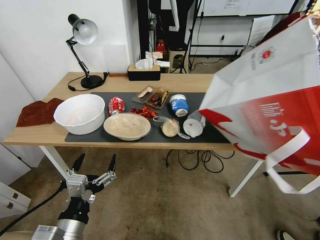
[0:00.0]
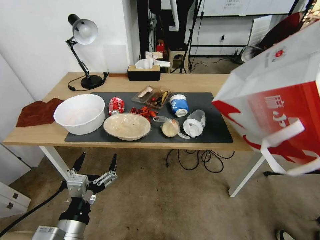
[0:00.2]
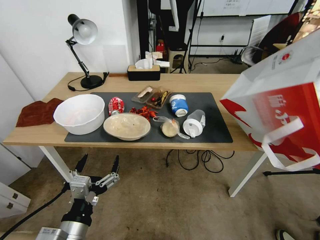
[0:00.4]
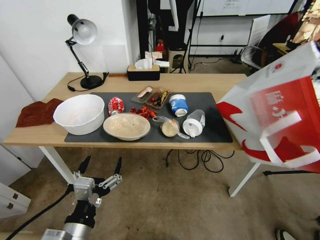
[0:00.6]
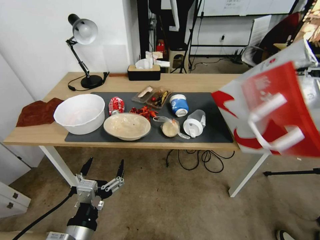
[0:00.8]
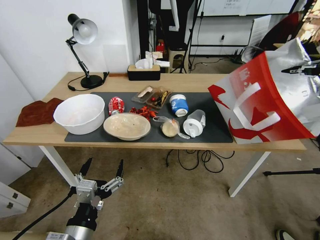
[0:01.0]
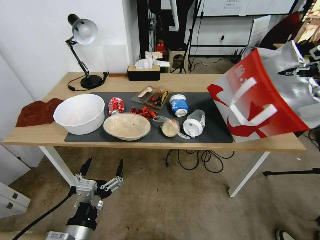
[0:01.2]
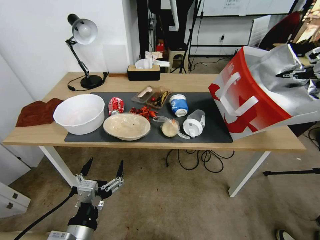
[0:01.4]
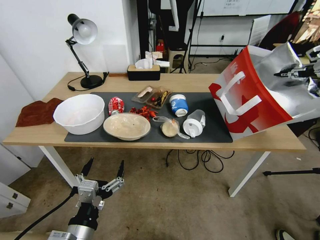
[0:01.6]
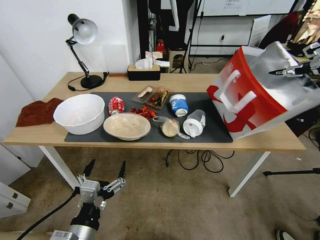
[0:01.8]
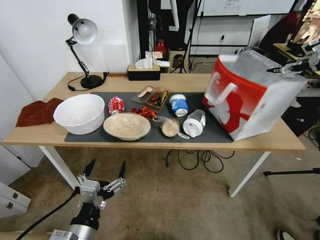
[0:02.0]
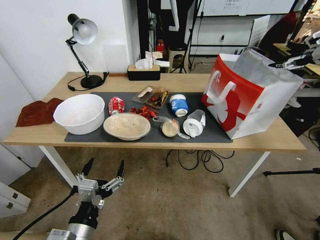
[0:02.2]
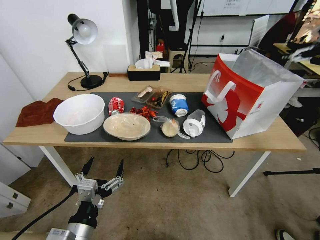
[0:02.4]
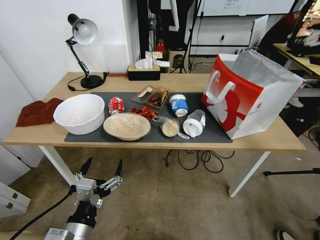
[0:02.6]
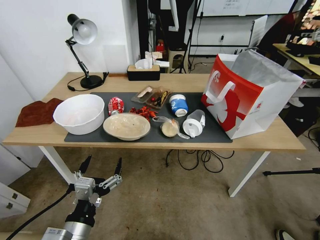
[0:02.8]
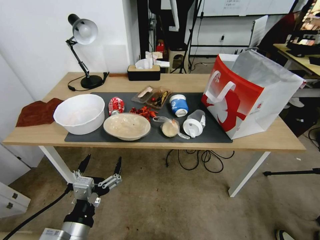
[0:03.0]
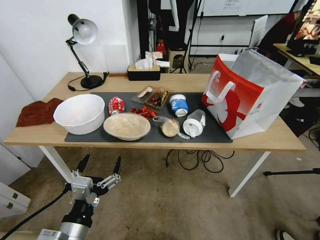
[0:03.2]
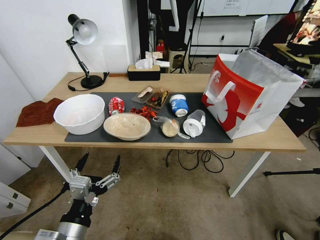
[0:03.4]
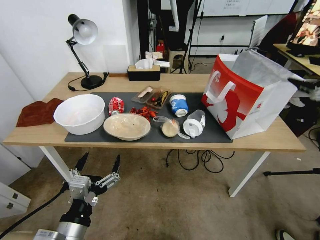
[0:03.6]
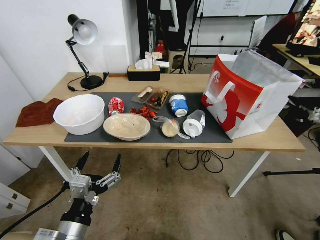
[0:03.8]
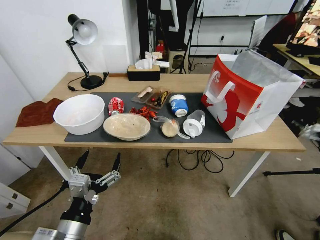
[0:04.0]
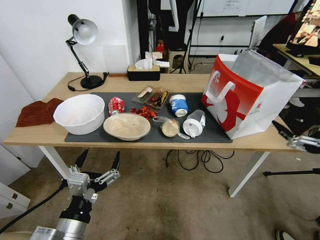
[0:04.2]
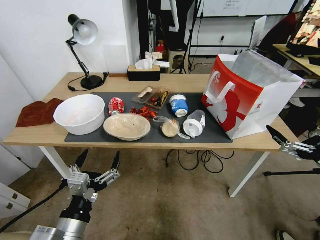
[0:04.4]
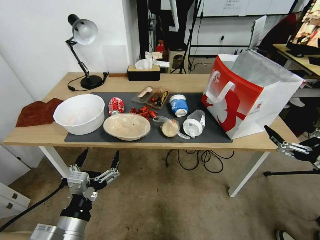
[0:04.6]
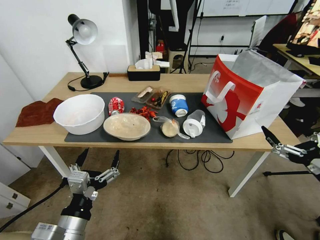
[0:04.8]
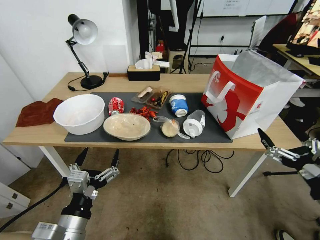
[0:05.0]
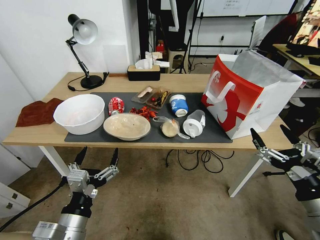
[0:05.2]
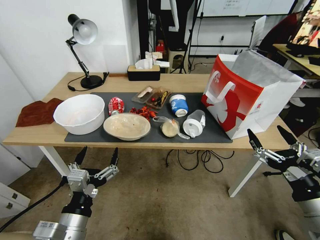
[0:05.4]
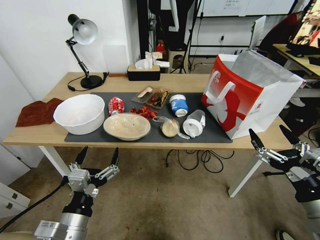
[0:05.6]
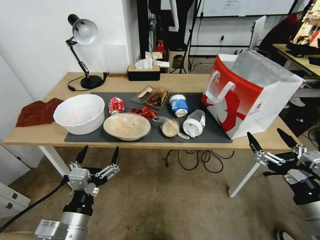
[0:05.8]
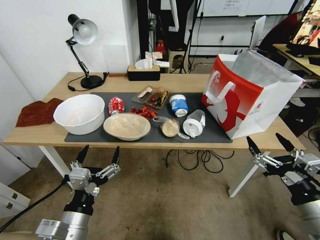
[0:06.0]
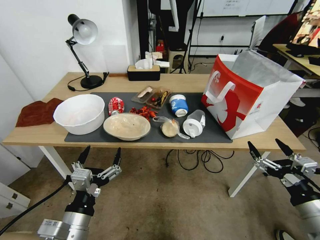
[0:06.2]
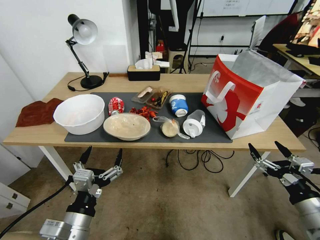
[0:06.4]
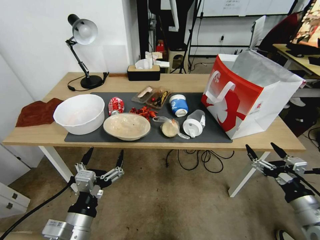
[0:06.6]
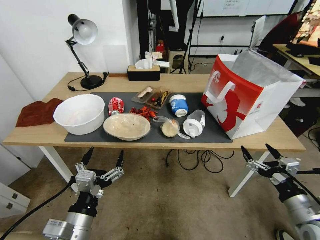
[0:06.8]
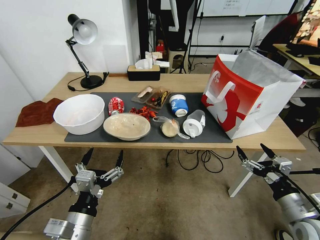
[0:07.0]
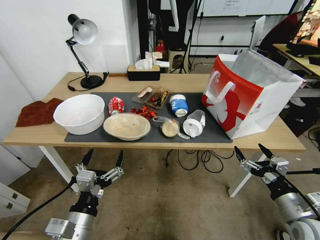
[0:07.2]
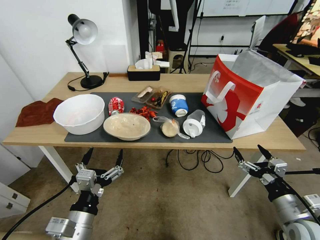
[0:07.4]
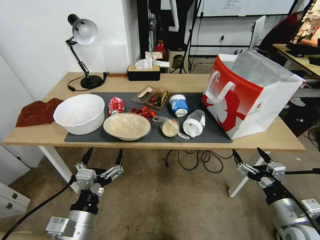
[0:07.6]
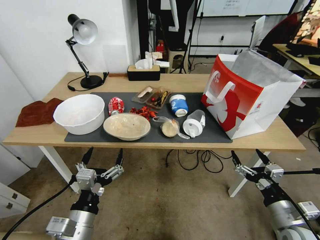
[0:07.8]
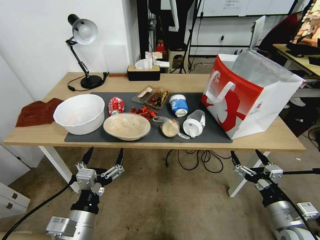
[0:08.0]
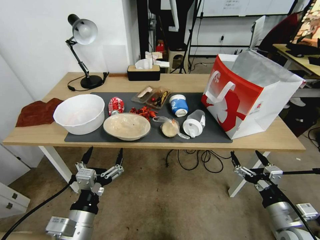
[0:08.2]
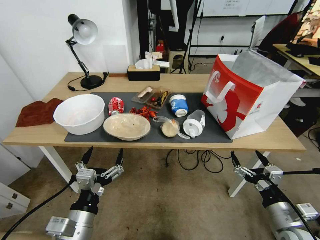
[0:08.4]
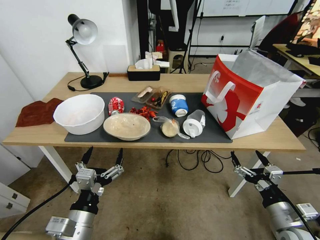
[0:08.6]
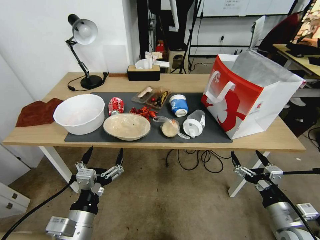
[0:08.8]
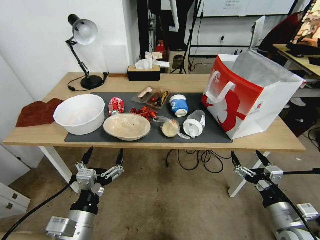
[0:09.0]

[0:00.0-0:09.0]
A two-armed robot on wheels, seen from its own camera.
Task of the whole recording: Pick up the food delivery bag from the floor and place it on the table.
0:00.0 to 0:01.6: The right gripper goes about 20 cm forward, downward and to the right.
0:01.6 to 0:03.0: The right gripper shifts approximately 15 cm backward, upward and to the left, and opens its fingers.
0:03.0 to 0:04.4: The right gripper is displaced downward and backward by about 35 cm.
0:04.4 to 0:06.0: The right gripper heads to the left and downward, covering about 10 cm.
0:06.0 to 0:07.6: The right gripper is displaced downward by approximately 10 cm.
0:07.6 to 0:09.0: The grippers move only a little.

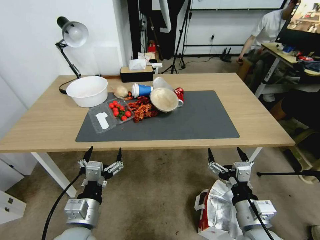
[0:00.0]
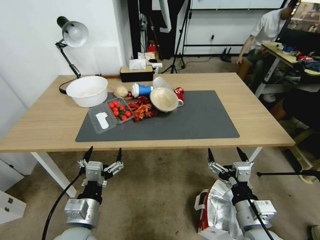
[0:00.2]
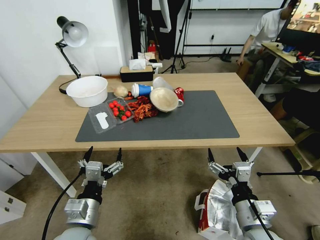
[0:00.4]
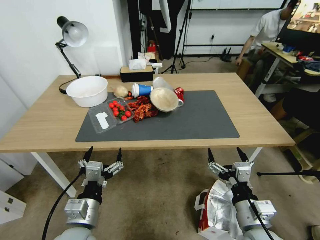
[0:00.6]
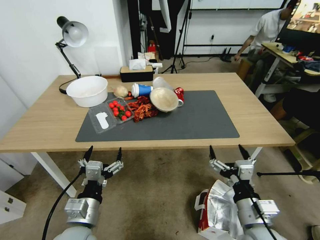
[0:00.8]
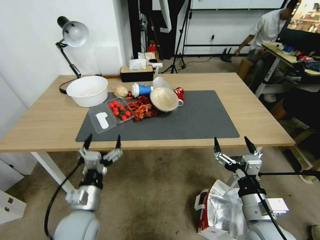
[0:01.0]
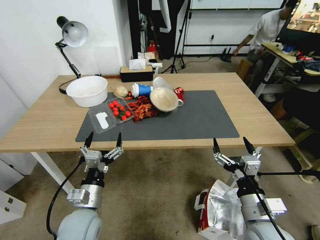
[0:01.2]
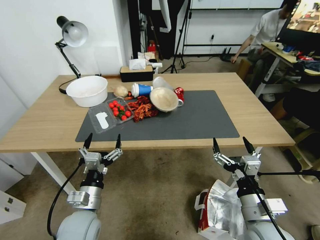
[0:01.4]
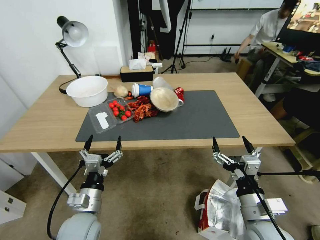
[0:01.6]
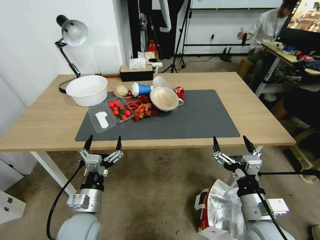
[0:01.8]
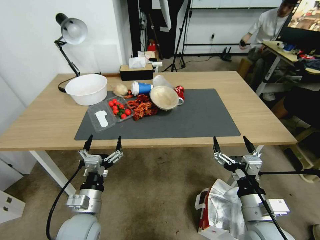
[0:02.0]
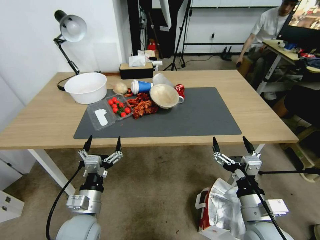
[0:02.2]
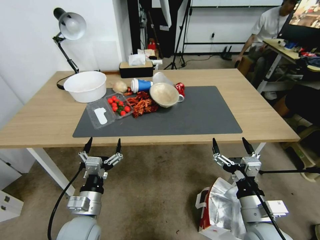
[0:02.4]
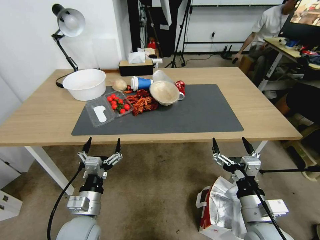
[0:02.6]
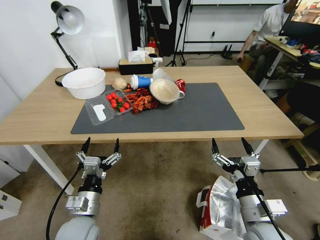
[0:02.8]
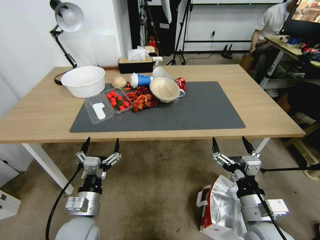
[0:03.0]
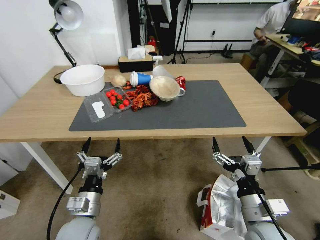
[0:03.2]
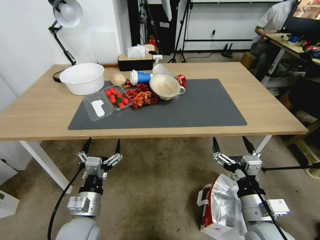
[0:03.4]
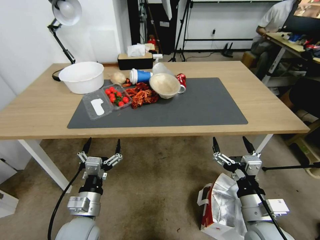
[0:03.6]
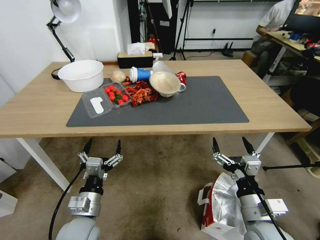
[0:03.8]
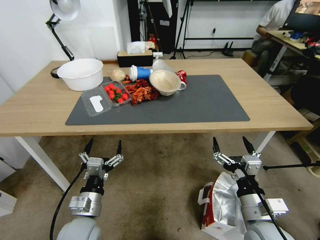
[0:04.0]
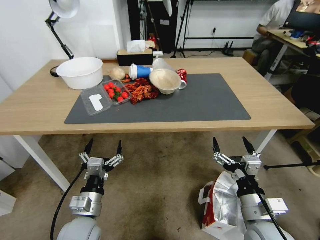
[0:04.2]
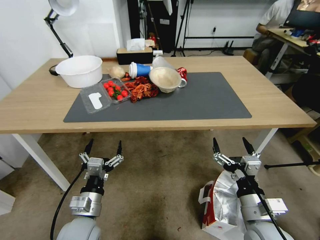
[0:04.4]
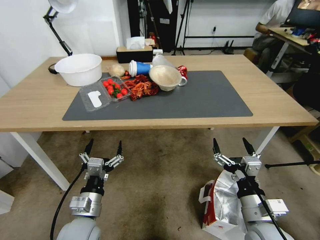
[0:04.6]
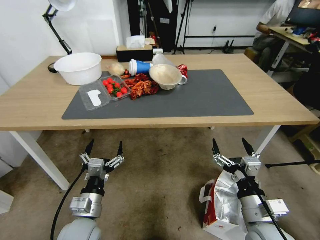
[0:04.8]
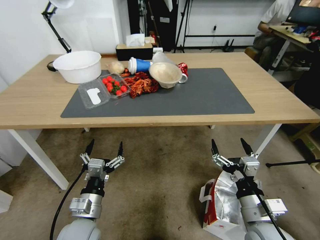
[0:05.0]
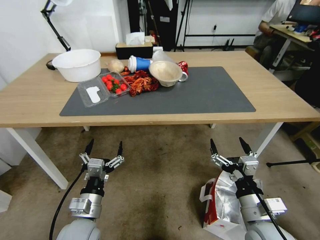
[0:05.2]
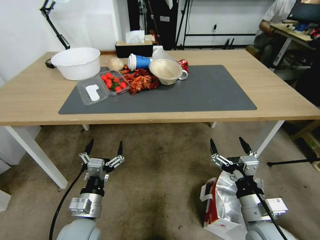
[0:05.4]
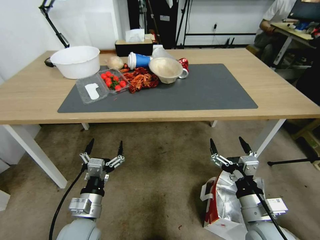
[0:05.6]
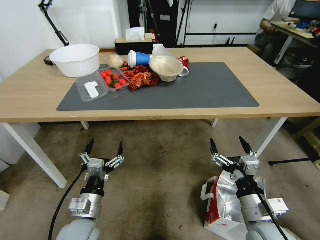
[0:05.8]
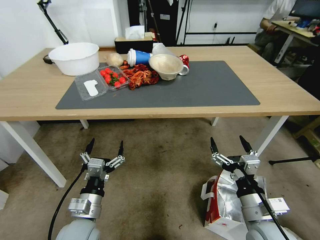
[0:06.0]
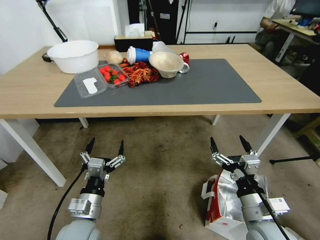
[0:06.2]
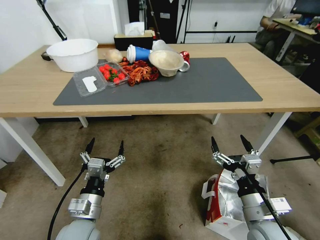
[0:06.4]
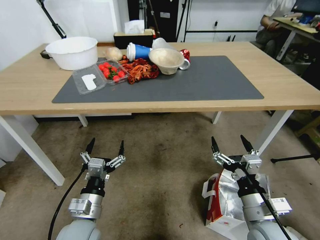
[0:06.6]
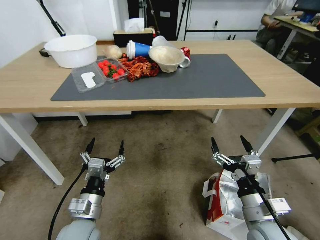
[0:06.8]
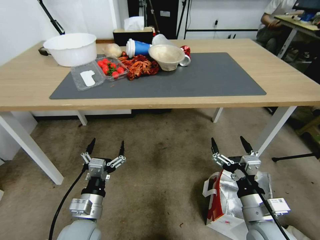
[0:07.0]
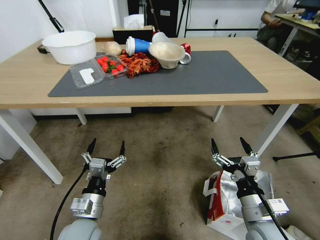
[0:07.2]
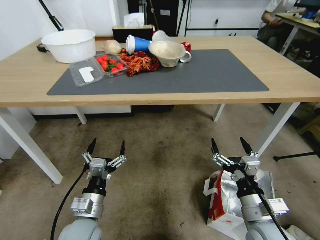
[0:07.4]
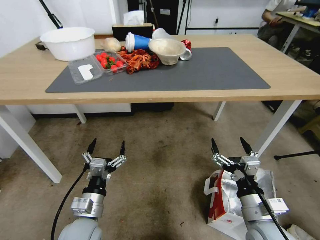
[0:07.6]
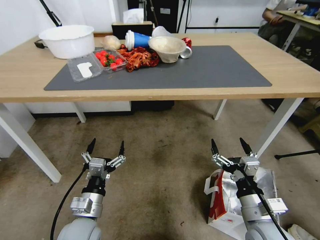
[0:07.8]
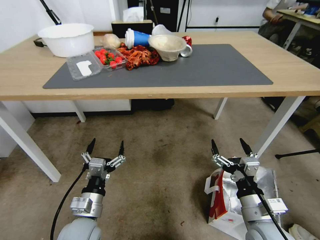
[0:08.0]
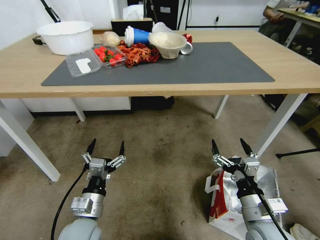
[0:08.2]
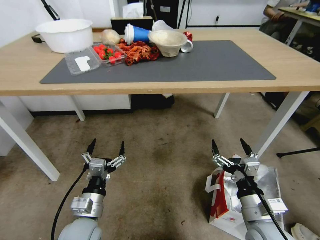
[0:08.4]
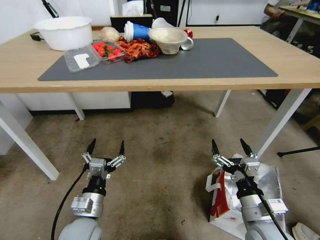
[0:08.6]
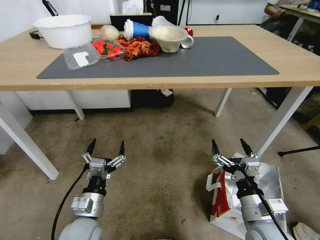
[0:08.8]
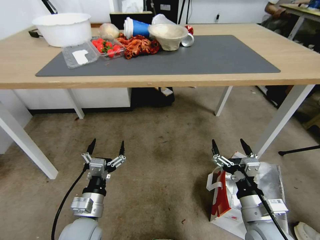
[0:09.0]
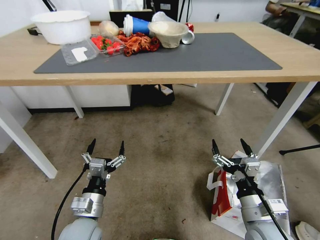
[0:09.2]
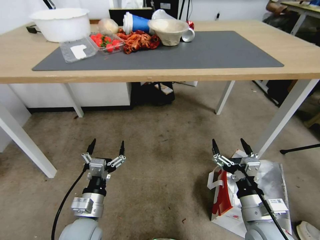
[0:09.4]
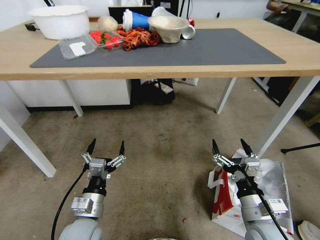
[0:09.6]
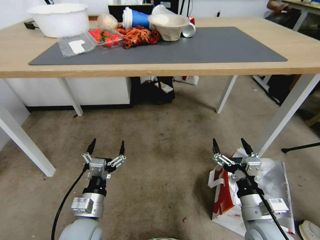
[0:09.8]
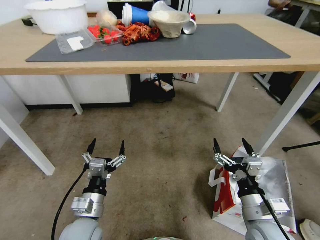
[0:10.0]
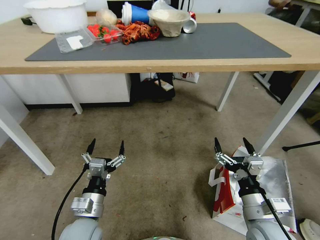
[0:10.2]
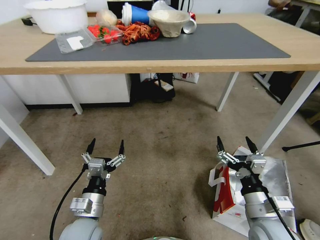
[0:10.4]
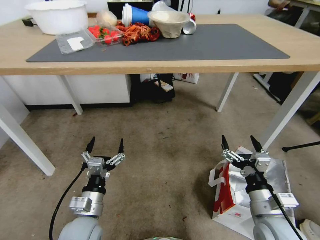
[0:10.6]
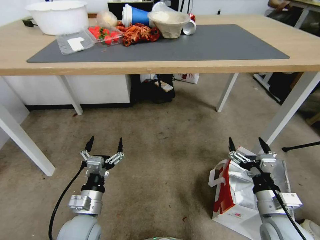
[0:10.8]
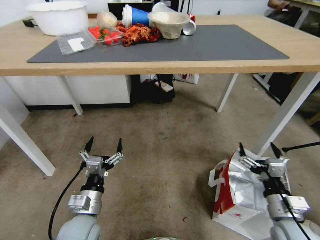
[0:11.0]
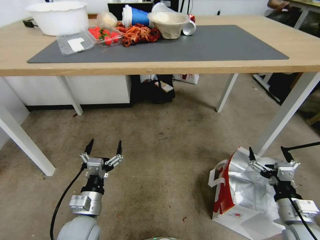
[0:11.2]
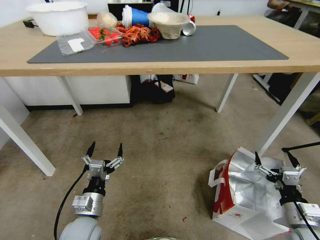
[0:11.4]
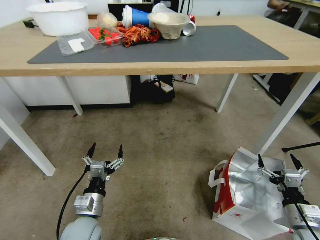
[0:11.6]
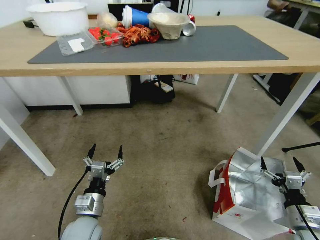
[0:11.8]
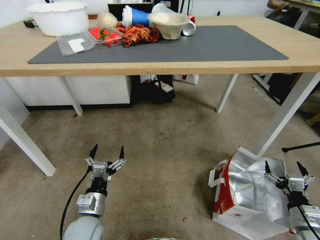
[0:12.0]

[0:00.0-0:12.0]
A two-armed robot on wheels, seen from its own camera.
Task of the whole recording: Pick up the food delivery bag from the floor and place it on the table.
0:10.4 to 0:12.0: The right gripper moves to the right and downward, about 20 cm.

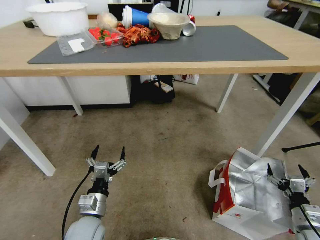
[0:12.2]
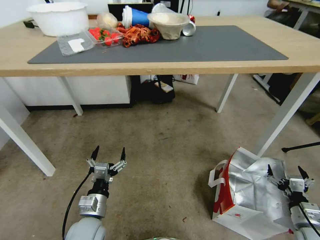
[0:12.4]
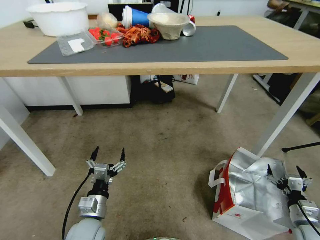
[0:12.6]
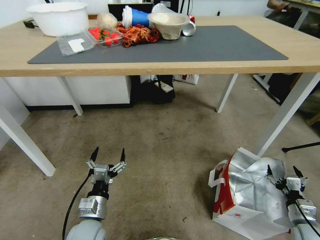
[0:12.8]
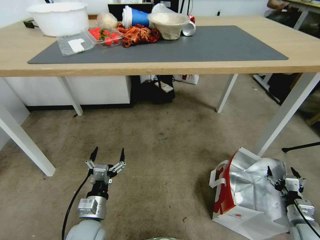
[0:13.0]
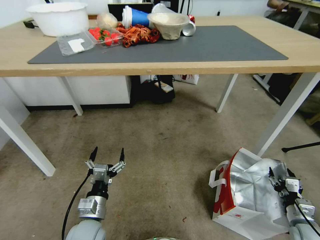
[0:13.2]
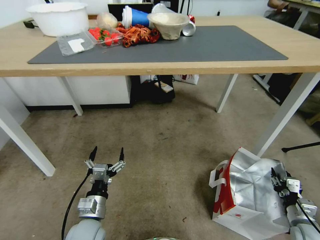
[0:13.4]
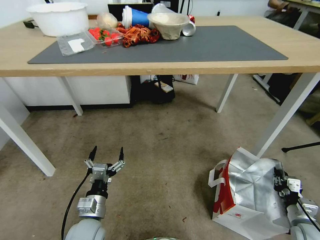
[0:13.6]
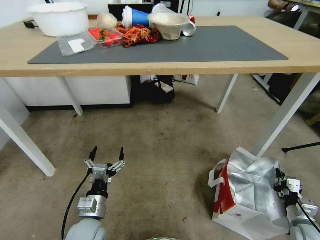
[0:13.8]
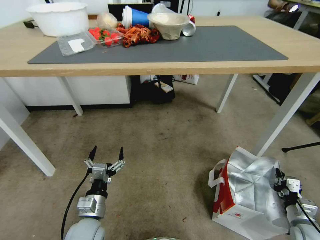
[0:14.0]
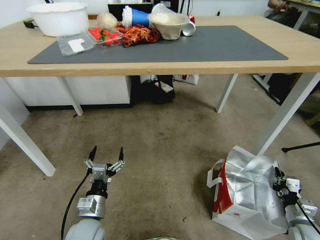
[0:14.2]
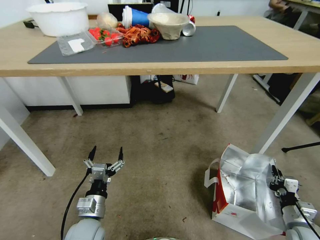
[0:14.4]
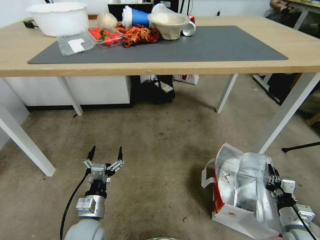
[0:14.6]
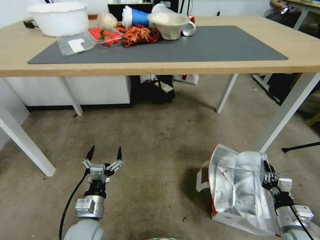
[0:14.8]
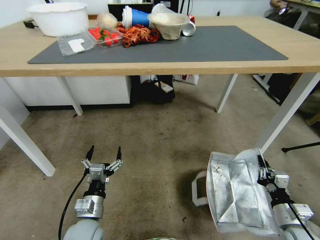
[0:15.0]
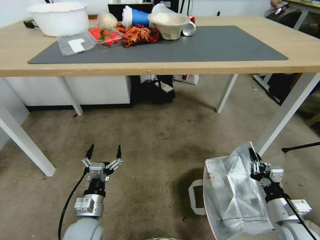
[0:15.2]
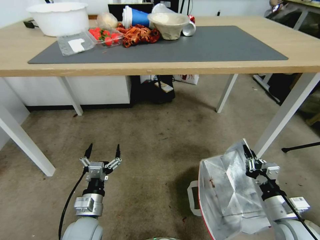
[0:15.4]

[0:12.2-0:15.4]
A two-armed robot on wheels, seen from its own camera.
Task of the whole recording: Pick up the food delivery bag from the floor and place it on the table.
0:12.2 to 0:13.8: The right gripper closes.
0:13.8 to 0:15.4: The right gripper shifts about 15 cm to the left and upward.
